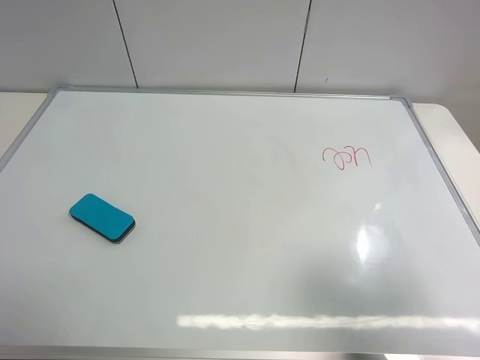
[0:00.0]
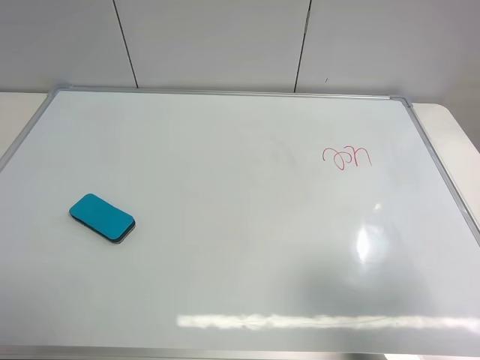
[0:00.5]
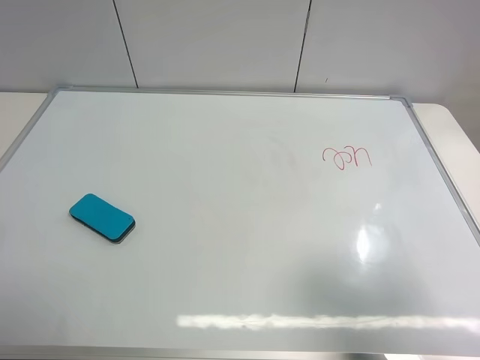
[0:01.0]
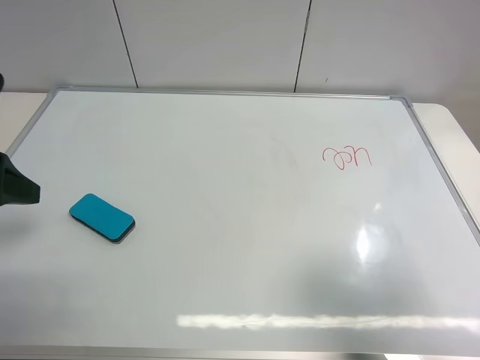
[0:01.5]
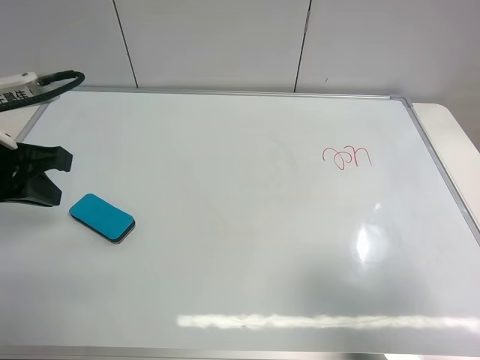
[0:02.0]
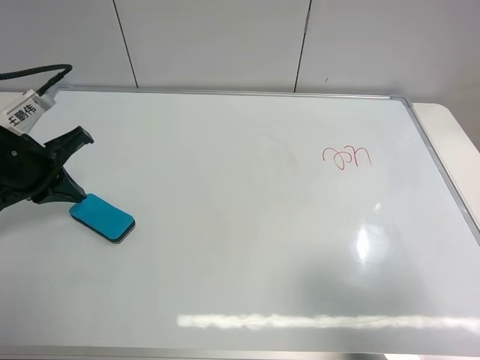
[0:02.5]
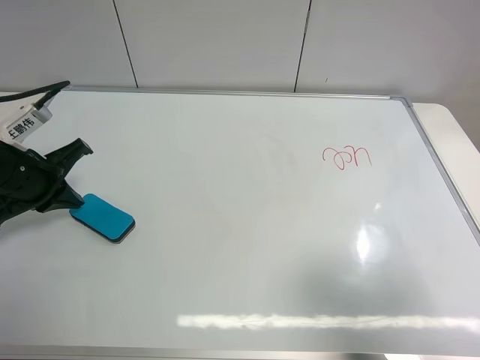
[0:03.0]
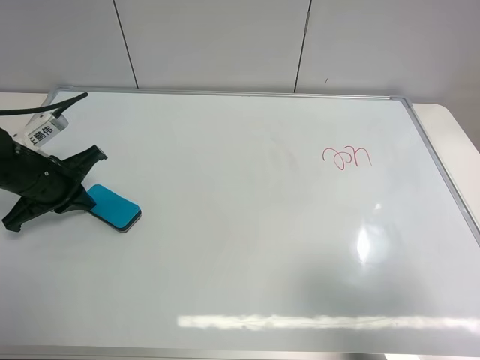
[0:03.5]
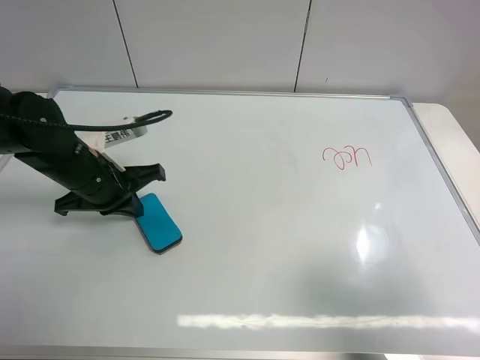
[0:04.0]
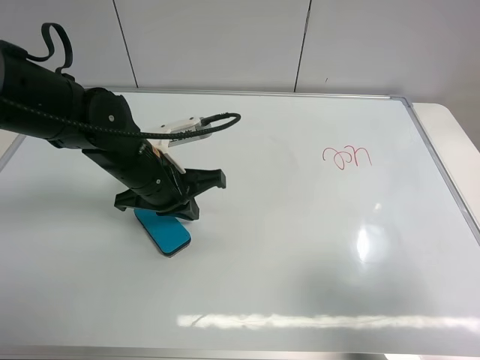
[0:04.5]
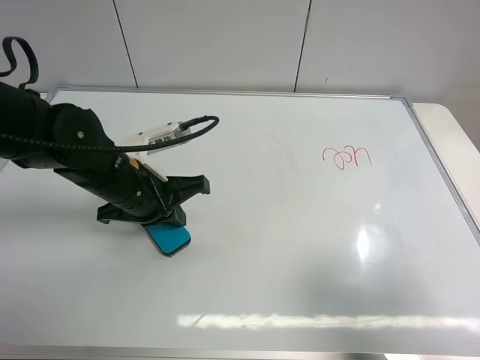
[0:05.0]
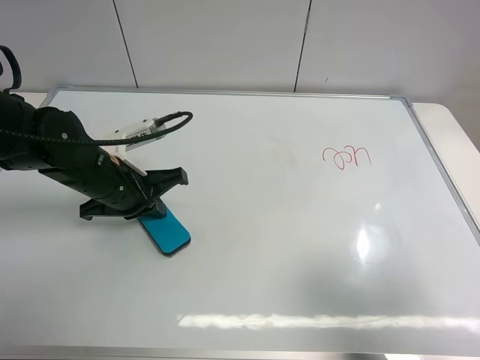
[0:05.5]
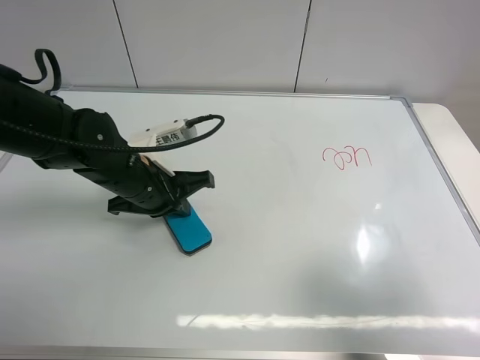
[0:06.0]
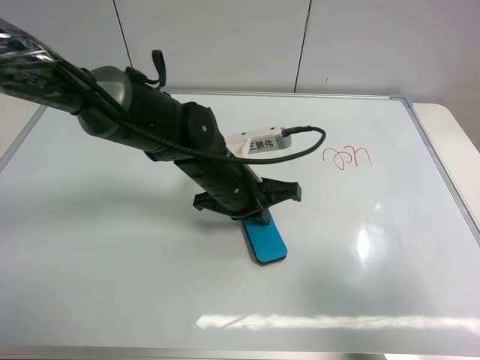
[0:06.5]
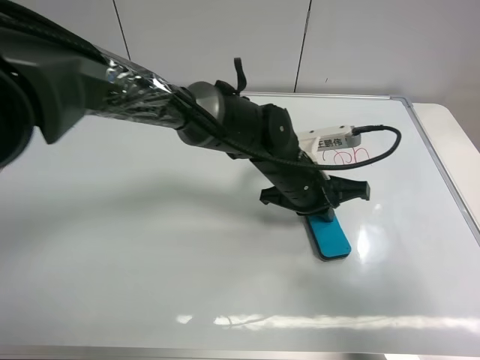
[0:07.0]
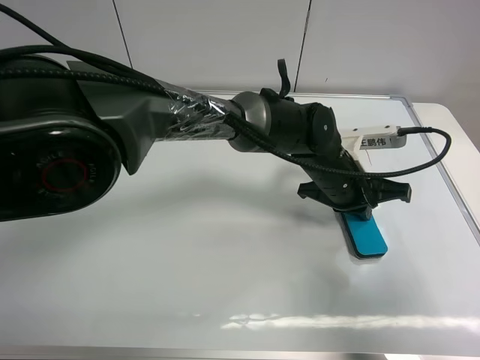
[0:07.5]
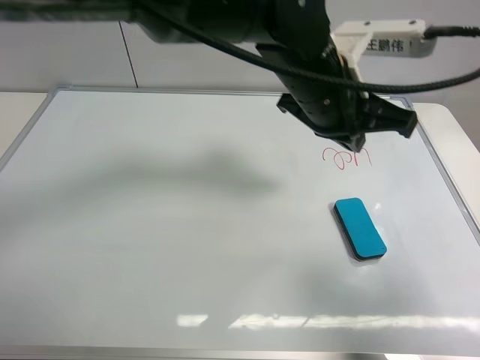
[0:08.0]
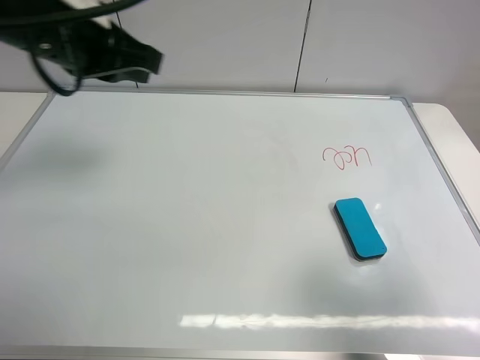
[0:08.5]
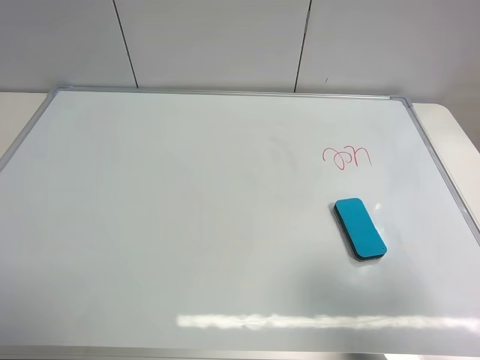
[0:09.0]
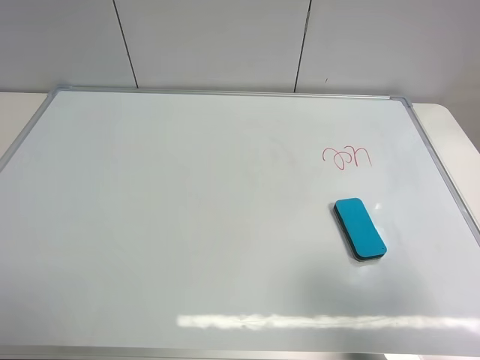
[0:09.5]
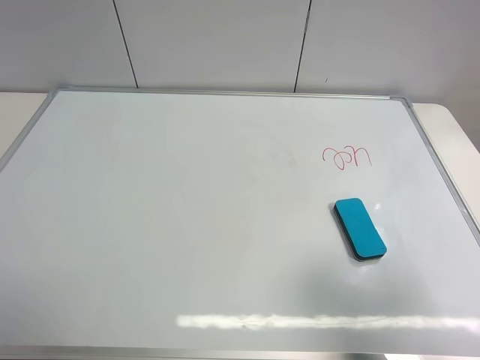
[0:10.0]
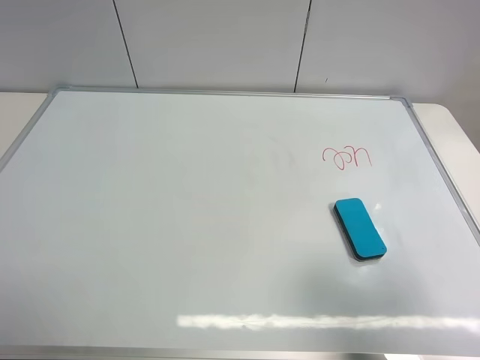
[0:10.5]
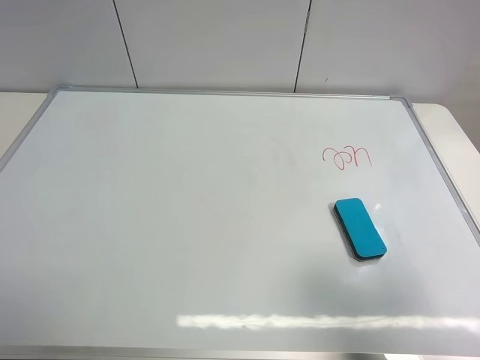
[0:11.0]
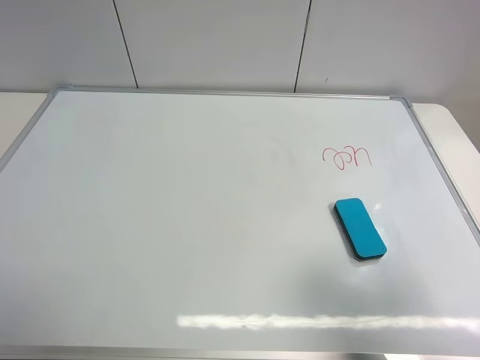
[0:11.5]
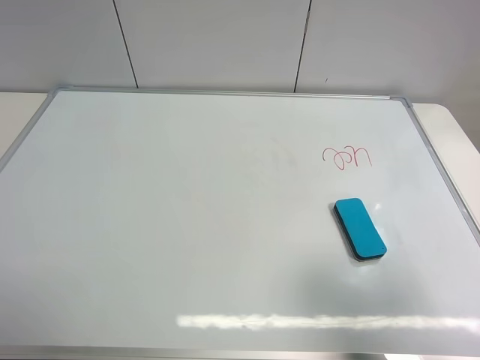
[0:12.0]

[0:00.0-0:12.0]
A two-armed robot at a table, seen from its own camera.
Task of the whole recording: use the left gripper to place the eraser in the right, use the right gripper to pick up the eraser, wipe the notes on the whiteboard clean, and then put it down.
Step, 0:00.0 to 0:07.5: Move the board eraser to the right of the whiteboard with left gripper.
0:00.0 to 0:02.0: The left gripper heads forward and downward, covering approximately 20 cm, and closes up.
0:02.0 to 0:04.0: The left gripper moves downward, to the right and forward, approximately 15 cm.
0:04.0 to 0:06.0: The left gripper swings left and right, approximately 5 cm each way, with 2 reversals.
0:06.0 to 0:08.0: The left gripper goes approximately 25 cm to the right and upward.
0:08.0 to 0:10.0: The left gripper moves to the left and backward, some 50 cm, and opens its fingers.
0:10.0 to 0:12.0: Both grippers stay put.

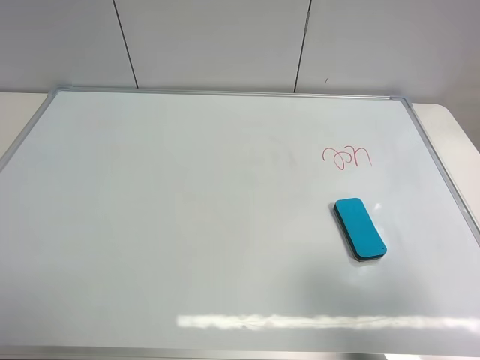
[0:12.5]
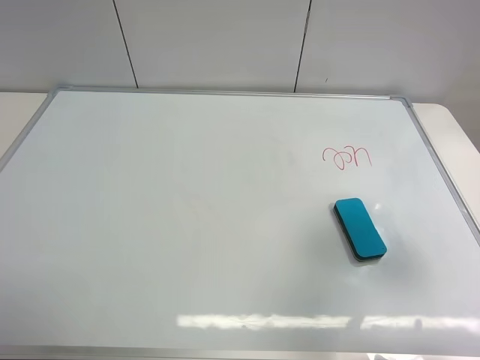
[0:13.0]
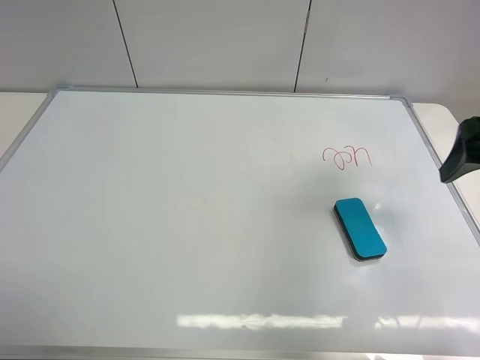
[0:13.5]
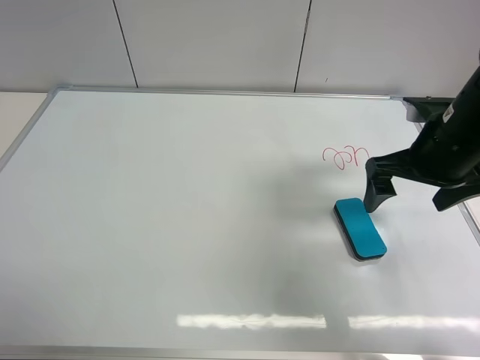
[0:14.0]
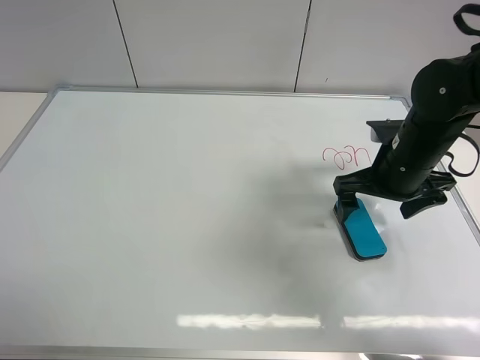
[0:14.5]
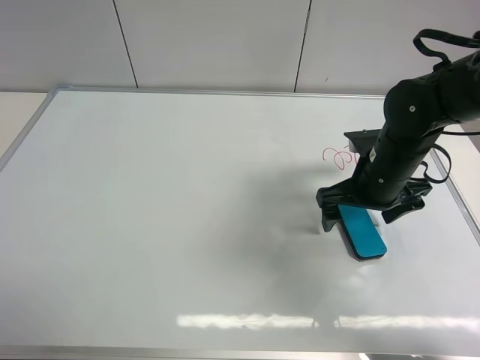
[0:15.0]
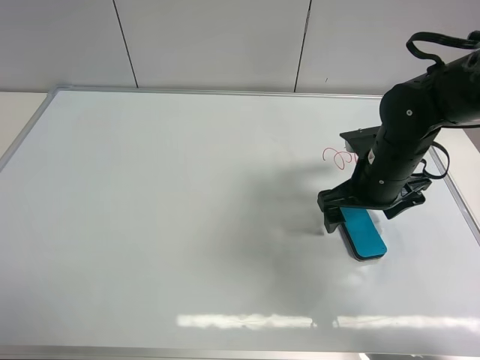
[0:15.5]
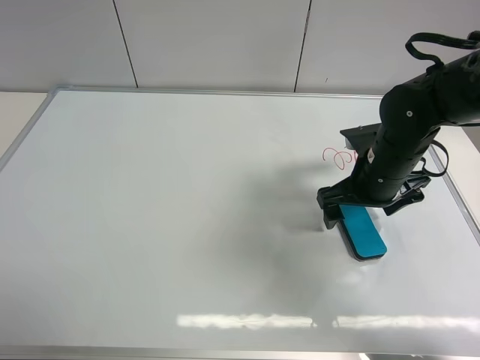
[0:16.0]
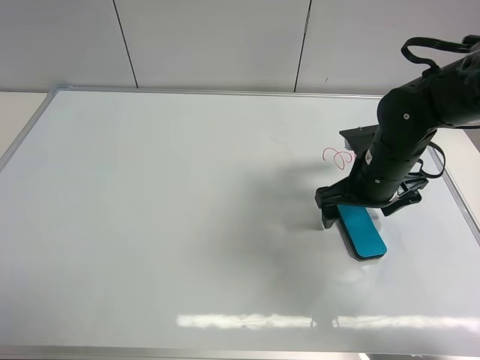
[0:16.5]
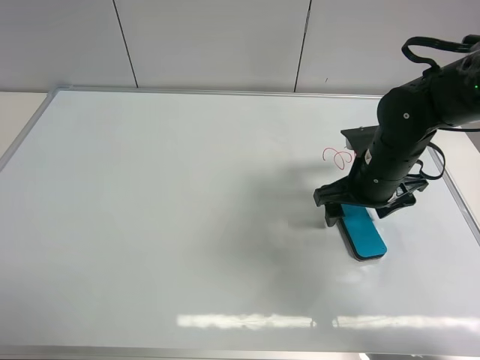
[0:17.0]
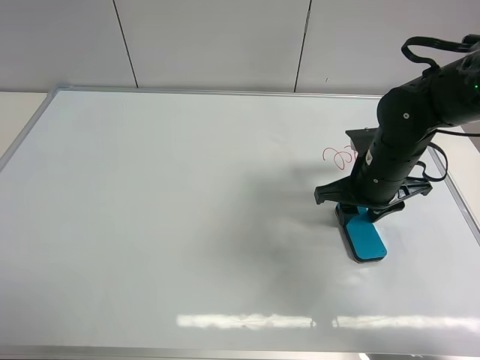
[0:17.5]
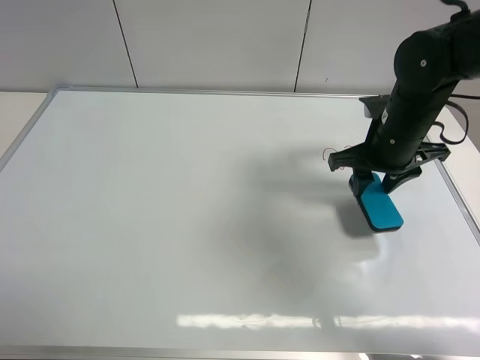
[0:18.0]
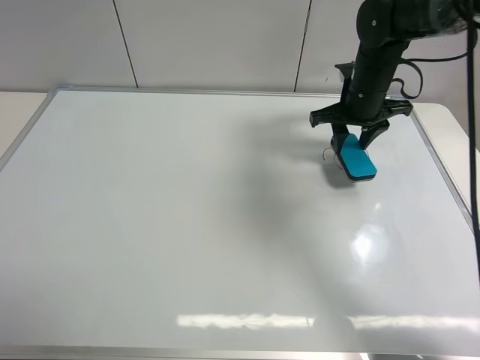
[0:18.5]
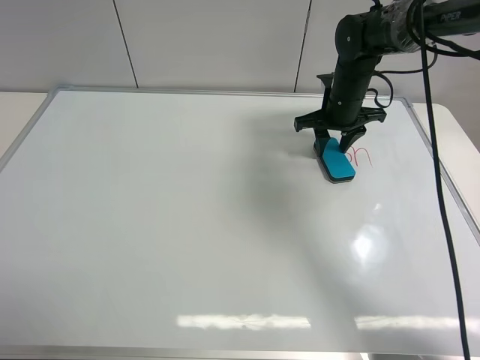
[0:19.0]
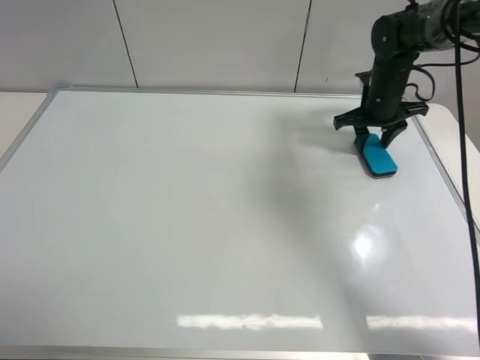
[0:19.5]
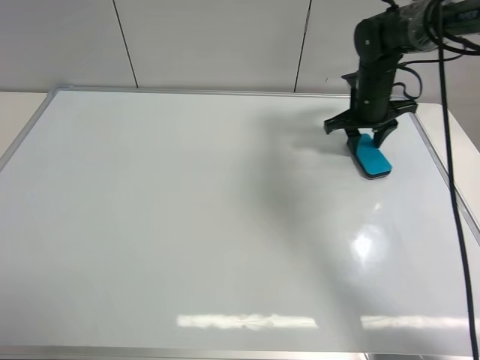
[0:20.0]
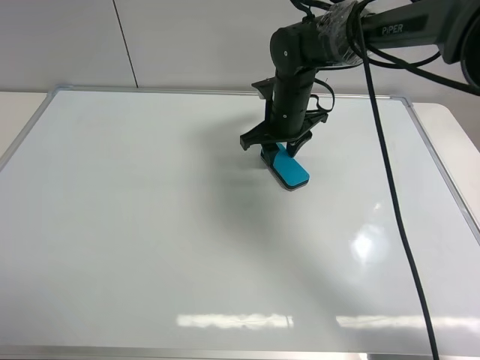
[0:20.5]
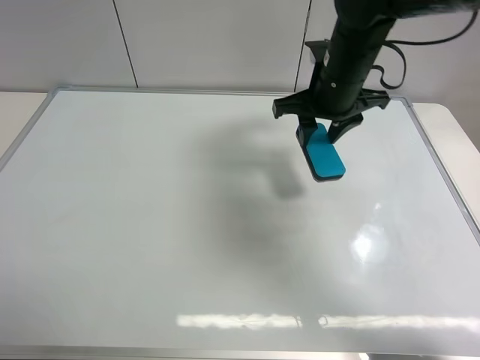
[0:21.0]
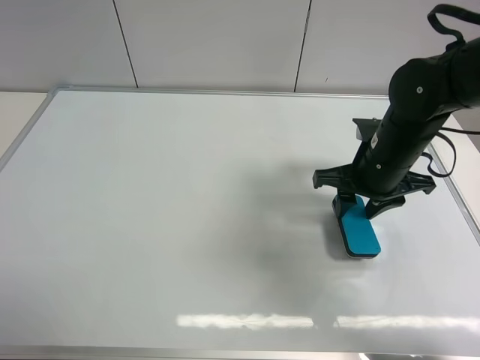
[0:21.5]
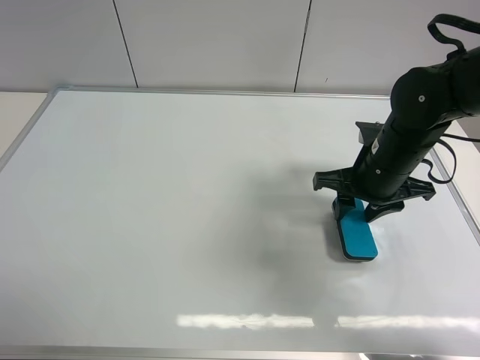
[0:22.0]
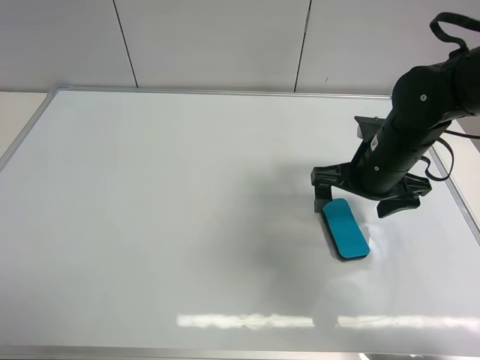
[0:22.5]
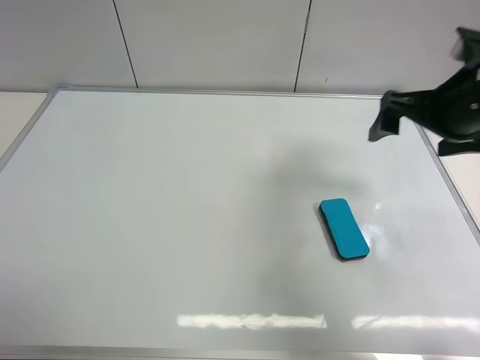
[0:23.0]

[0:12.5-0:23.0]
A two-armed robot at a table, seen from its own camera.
Task of the whole recording: use the left gripper to place the eraser in the right, use the right gripper to pick up the eraser, wipe the notes on the whiteboard clean, and then put it down.
Step, 0:12.5 to 0:17.5: Pick up the board eraser with right gripper.
Step, 0:18.0 to 0:20.5: Wipe off the writing on the board with right gripper.
Step, 0:21.0 to 0:22.0: Place the board eraser on the right side of board with right gripper.
0:12.5 to 0:14.5: The right gripper heads forward and downward, covering about 30 cm.
0:14.5 to 0:16.5: The grippers move only a little.
0:16.5 to 0:19.0: The right gripper heads forward, covering approximately 15 cm, and closes its fingers.
0:19.0 to 0:21.0: The right gripper goes left and right, roughly 20 cm each way, reversing 2 times.
0:21.0 to 0:23.0: The right gripper heads to the right and backward, covering some 15 cm, and opens up.

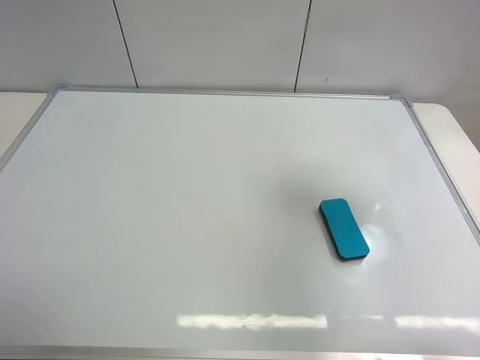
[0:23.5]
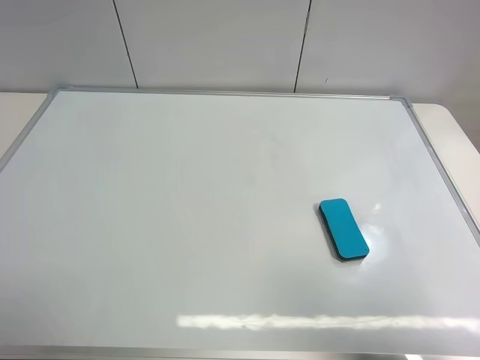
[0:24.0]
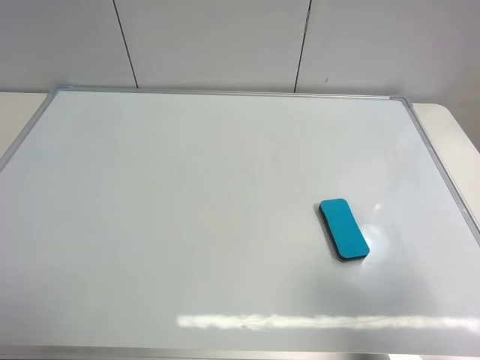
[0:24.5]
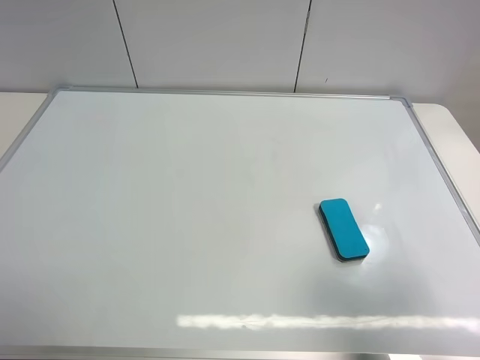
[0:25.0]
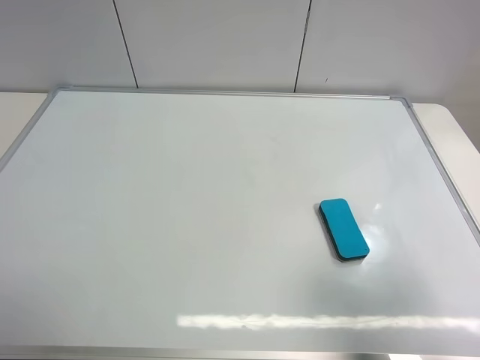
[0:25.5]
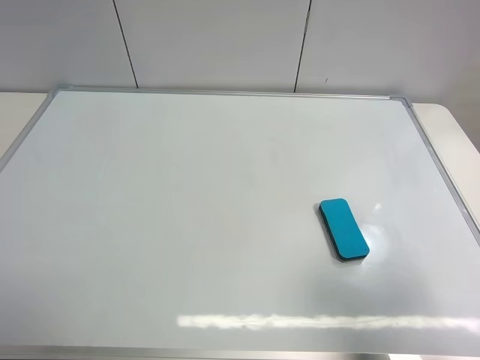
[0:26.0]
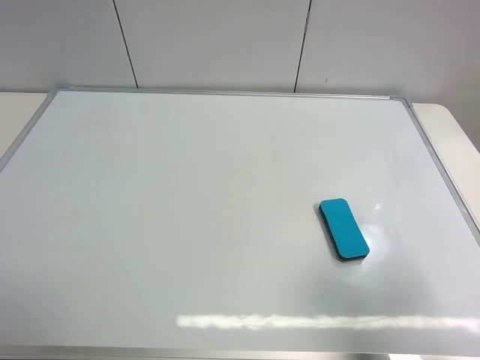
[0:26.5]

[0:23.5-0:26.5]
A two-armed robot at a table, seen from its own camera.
Task of the whole recording: use the left gripper to place the eraser in the right, use the right gripper to pick up the eraser, wipe the notes on the whiteboard clean, and then put it down.
0:23.5 to 0:25.0: The right gripper travels backward and downward by roughly 15 cm.
0:25.0 to 0:26.5: Both grippers stay about where they are.
